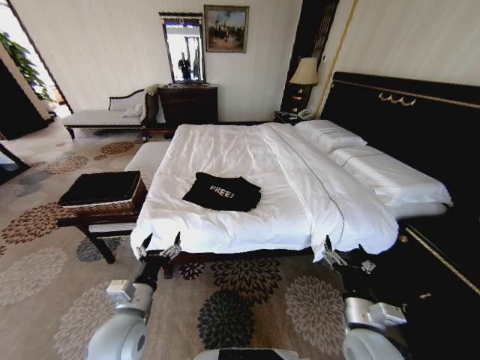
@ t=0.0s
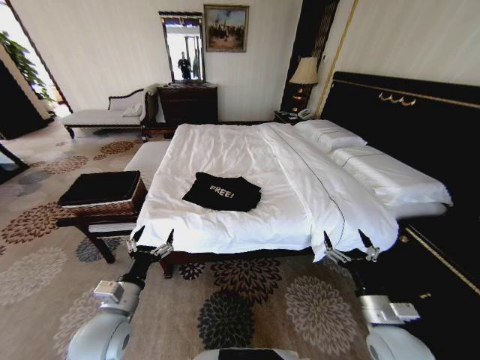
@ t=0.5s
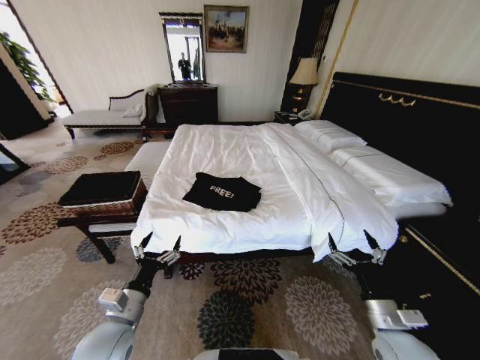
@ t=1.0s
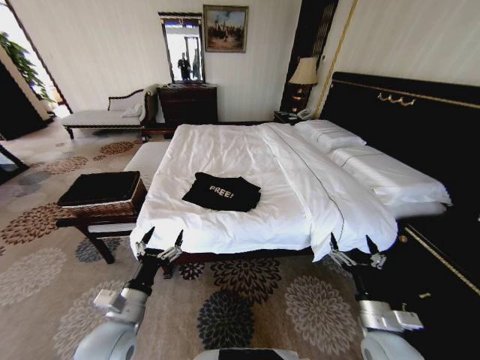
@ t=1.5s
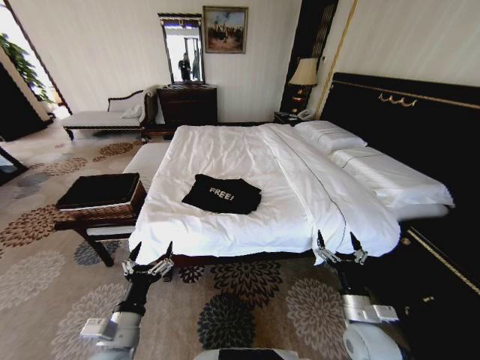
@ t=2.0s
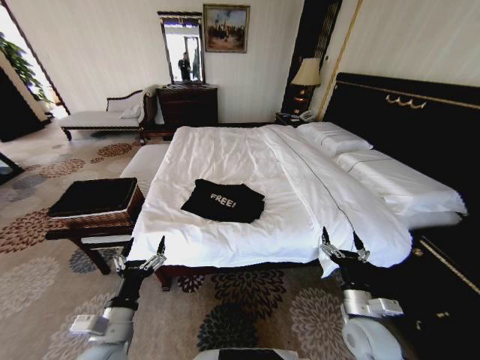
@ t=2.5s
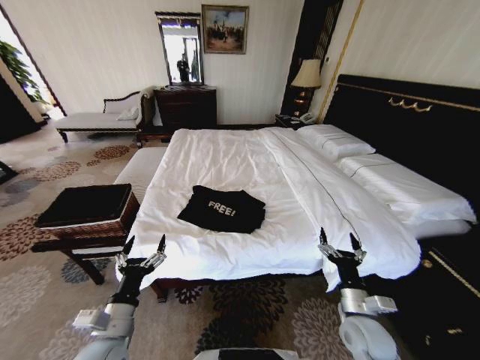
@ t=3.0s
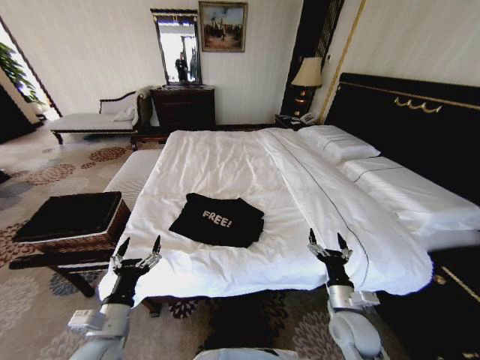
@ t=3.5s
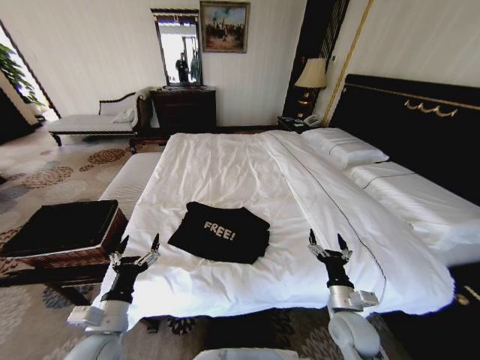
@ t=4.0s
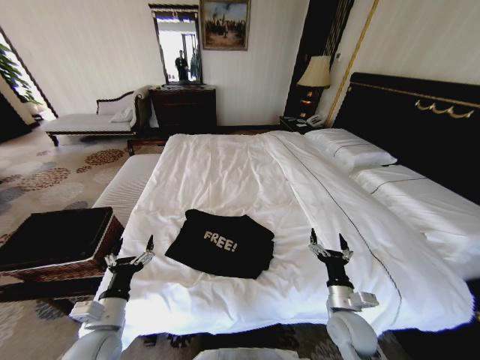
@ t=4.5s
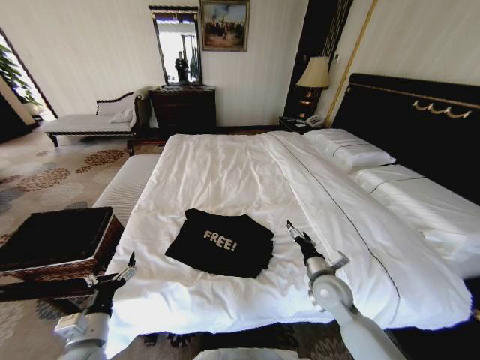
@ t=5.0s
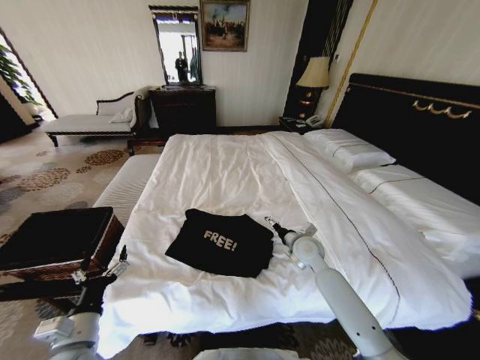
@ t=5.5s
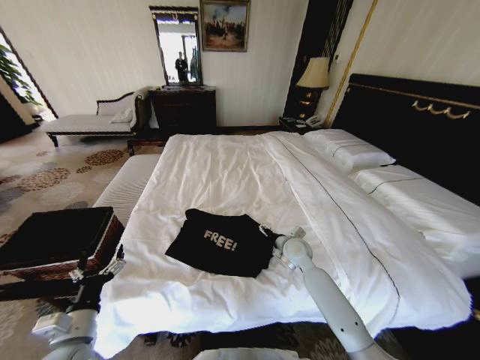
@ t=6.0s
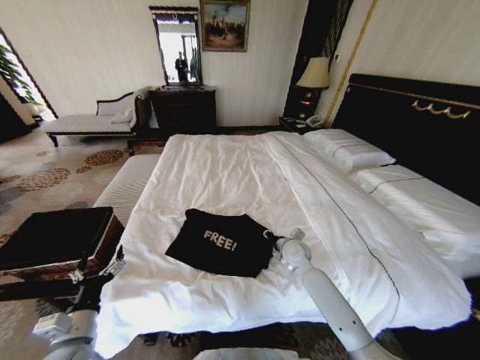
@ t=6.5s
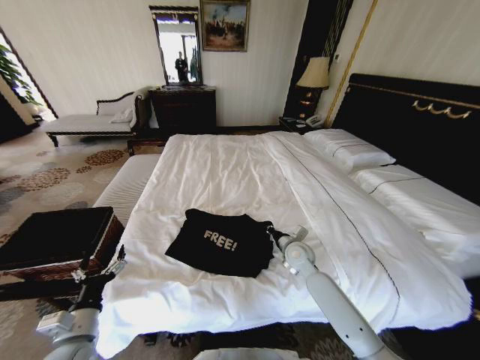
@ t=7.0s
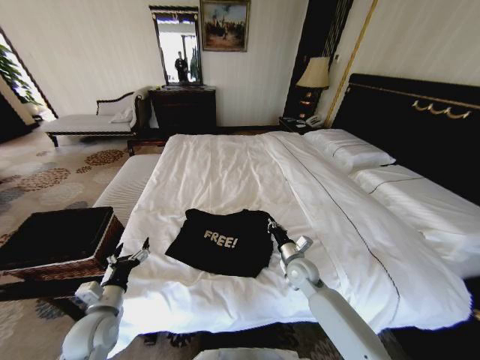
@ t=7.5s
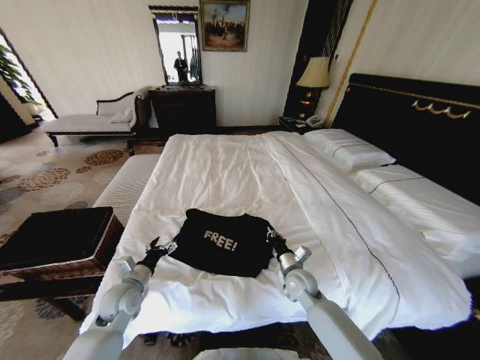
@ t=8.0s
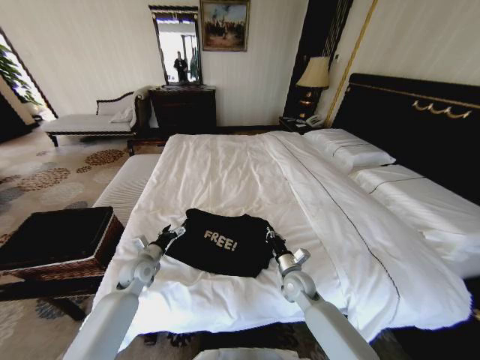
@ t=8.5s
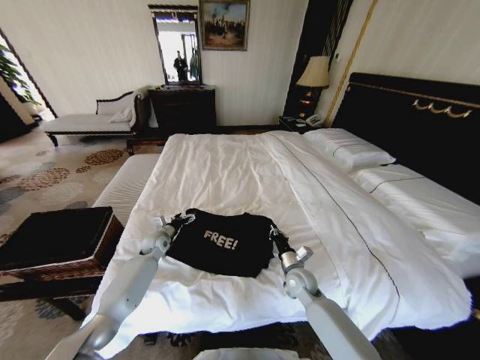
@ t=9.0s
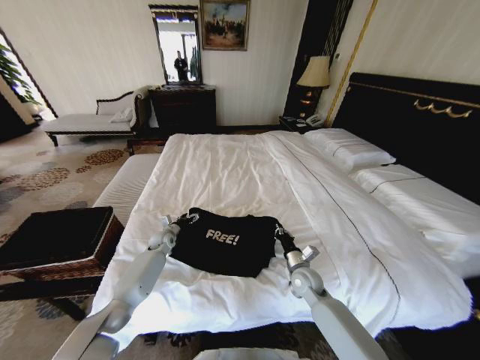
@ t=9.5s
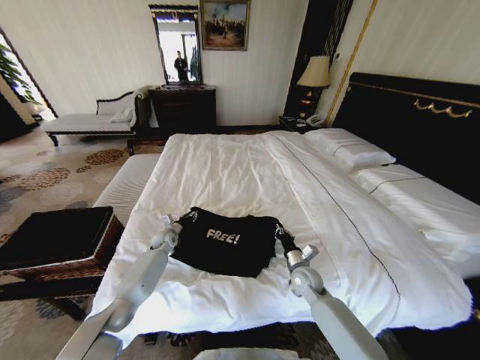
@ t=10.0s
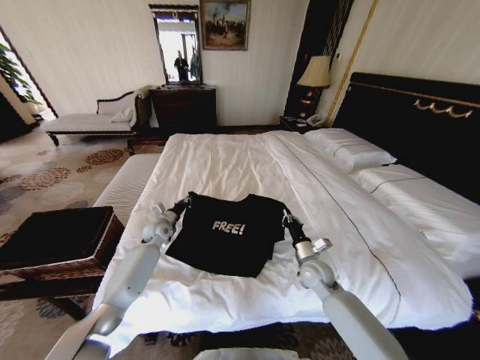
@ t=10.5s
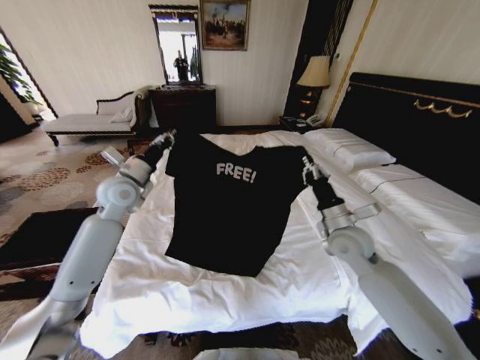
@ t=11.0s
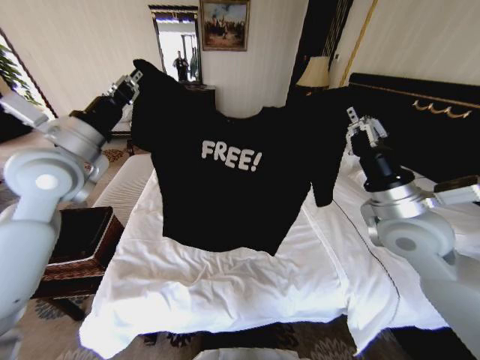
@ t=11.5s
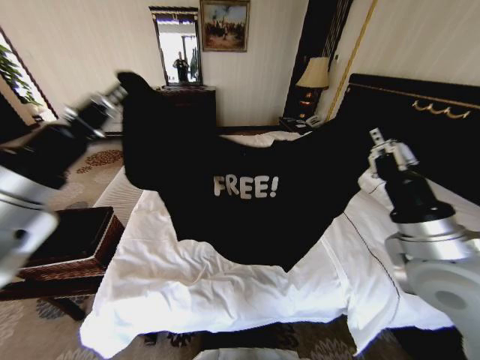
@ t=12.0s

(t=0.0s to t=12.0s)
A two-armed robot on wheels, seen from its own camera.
Task of the whole recording: Fold the clothes on the bed and place them into the basket.
t=4.0s - t=6.0s: The right gripper moves forward, about 20 cm. Meanwhile the left gripper is displaced to the left by some 5 cm.
t=6.0s - t=8.0s: The right gripper is displaced backward and downward by some 10 cm, and closes its fingers; the left gripper travels forward by about 15 cm.
t=8.0s - t=10.0s: The left gripper shifts some 25 cm forward, and closes.
t=10.0s - t=12.0s: The right gripper travels upward by roughly 30 cm; the left gripper heads upward and backward, covering some 50 cm, and closes.

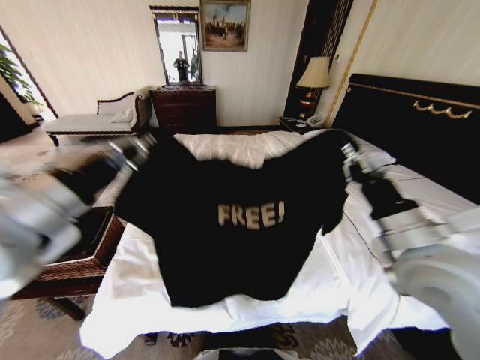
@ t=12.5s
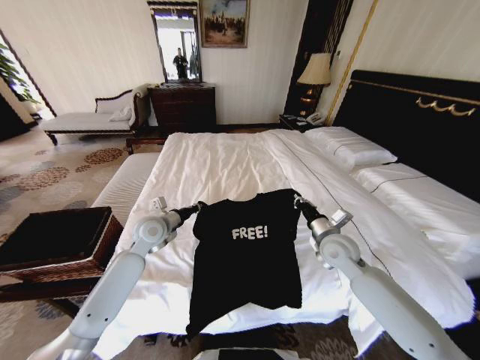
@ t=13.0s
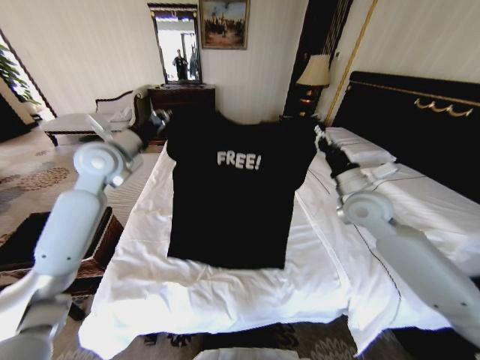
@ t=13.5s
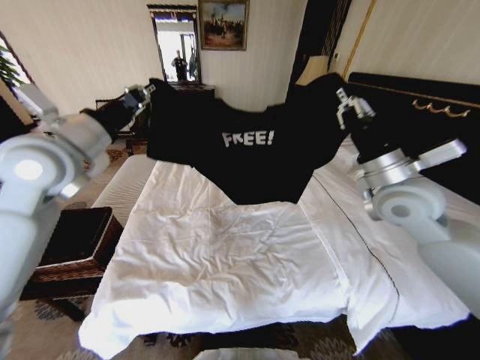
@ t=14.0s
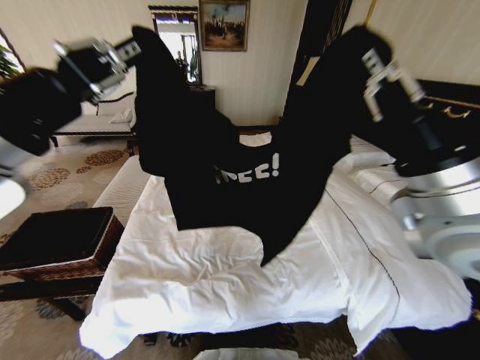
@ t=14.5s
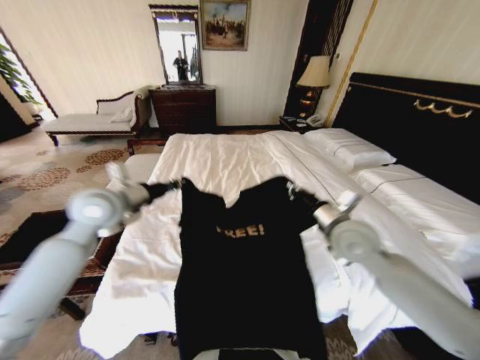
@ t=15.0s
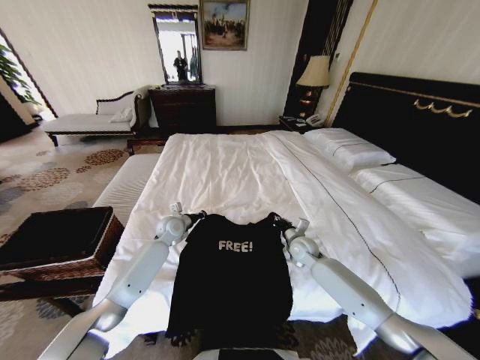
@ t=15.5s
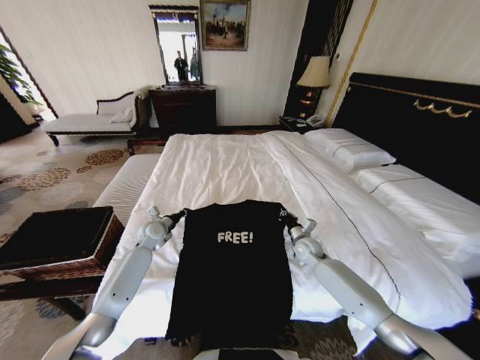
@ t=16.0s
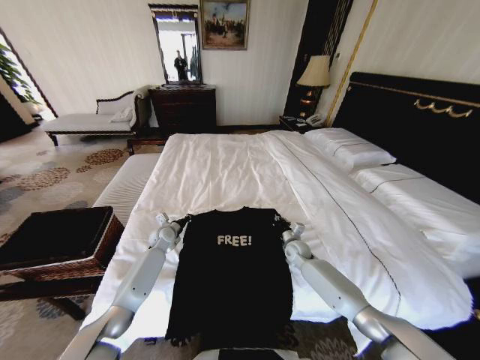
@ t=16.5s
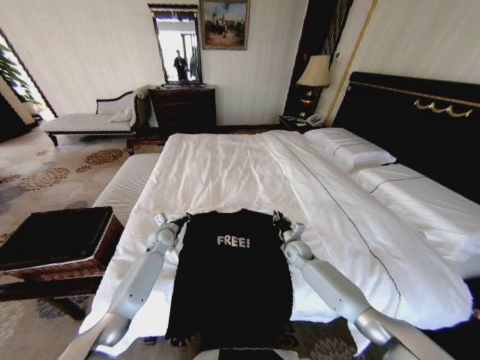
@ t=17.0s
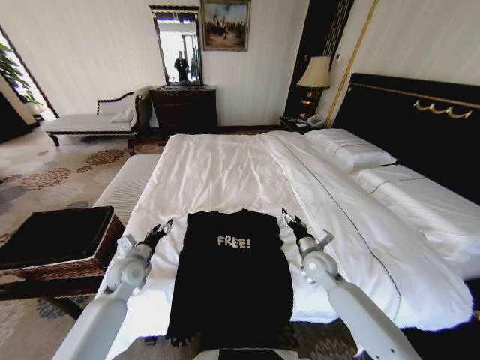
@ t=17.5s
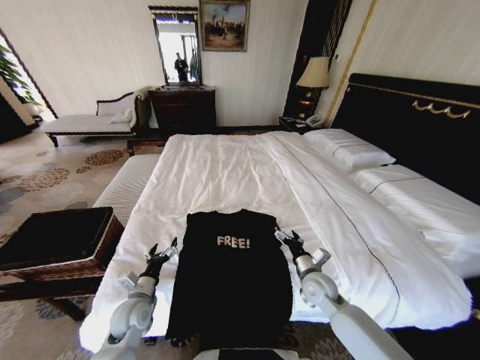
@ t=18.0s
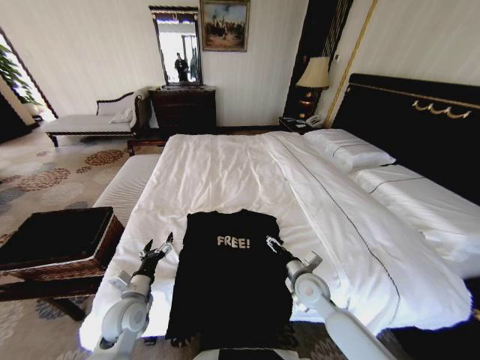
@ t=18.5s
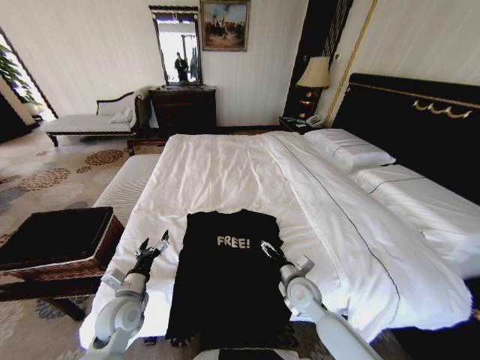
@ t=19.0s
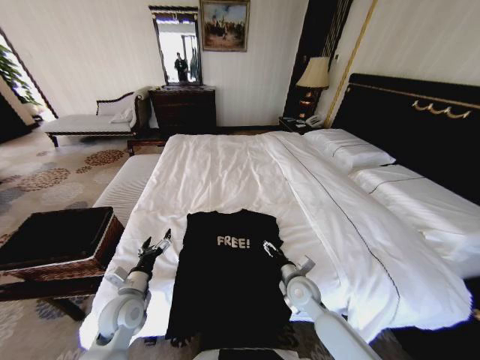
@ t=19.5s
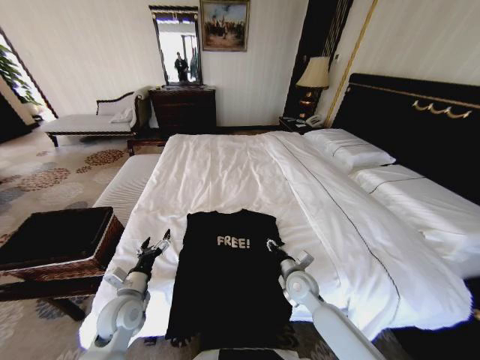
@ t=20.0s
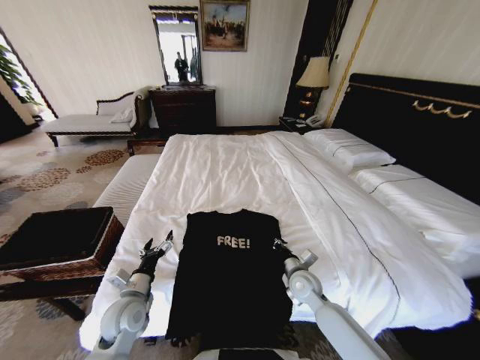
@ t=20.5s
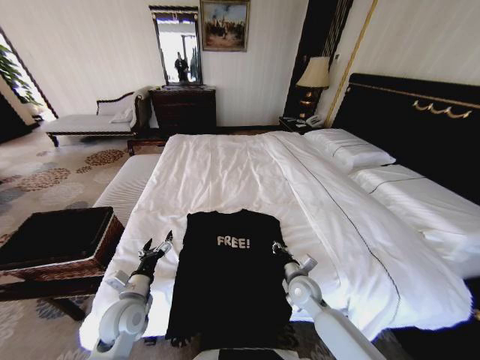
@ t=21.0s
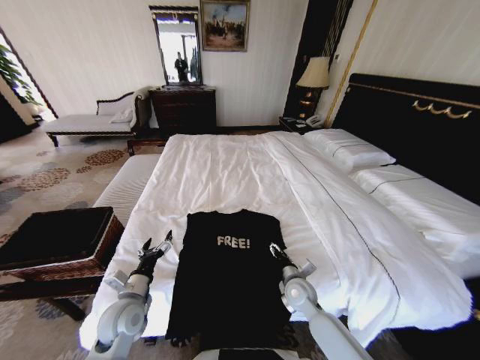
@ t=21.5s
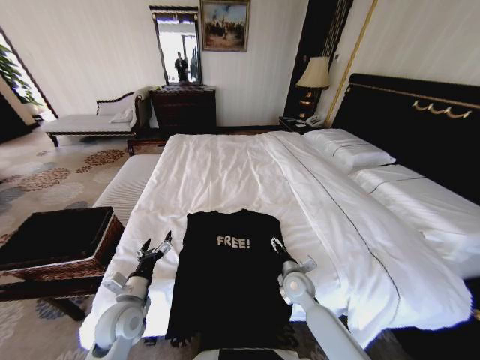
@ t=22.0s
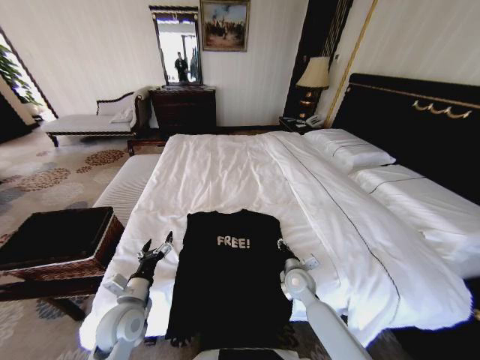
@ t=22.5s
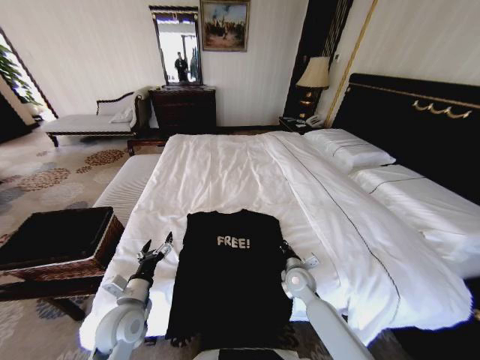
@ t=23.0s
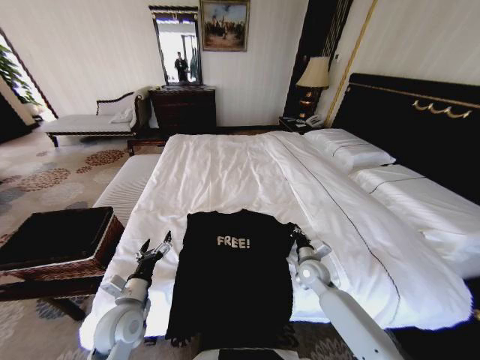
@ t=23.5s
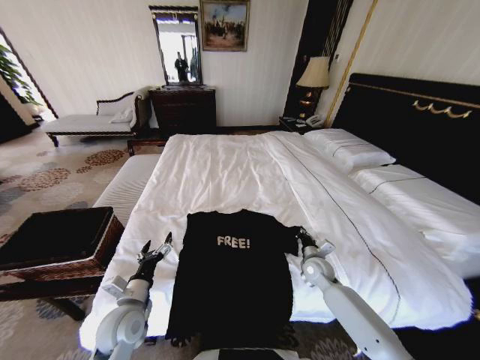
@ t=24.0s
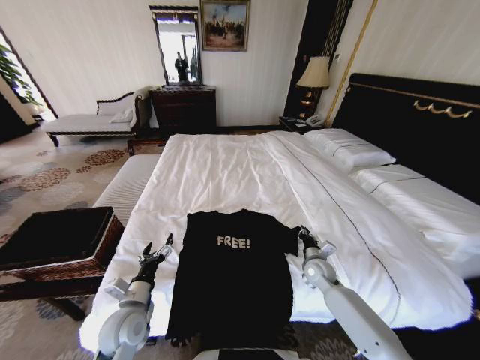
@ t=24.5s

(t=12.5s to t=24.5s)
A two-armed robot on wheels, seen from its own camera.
Task of the whole recording: Fold the clothes on the bed and place them into the basket.
t=12.5s - t=14.5s: The right gripper goes about 10 cm upward, while the left gripper travels downward and back again, some 20 cm each way.
t=14.5s - t=16.5s: The two grippers go roughly 50 cm downward and forward.
t=16.5s - t=18.5s: The left gripper is displaced backward by approximately 25 cm, and opens its fingers. The right gripper is displaced backward and upward by some 20 cm, and opens.
t=18.5s - t=20.5s: The right gripper closes up.
t=20.5s - t=22.5s: The right gripper opens.
t=22.5s - t=24.5s: The right gripper is displaced to the right by approximately 10 cm.

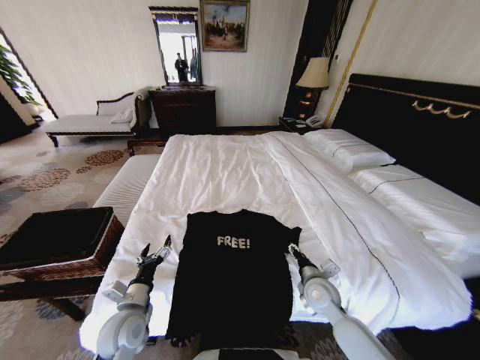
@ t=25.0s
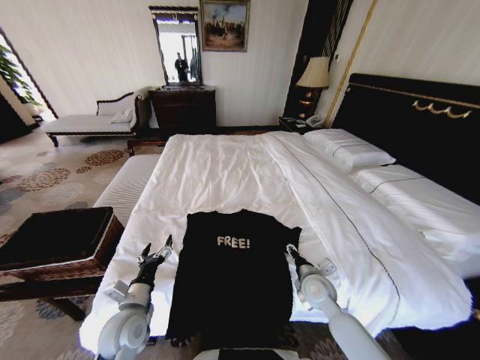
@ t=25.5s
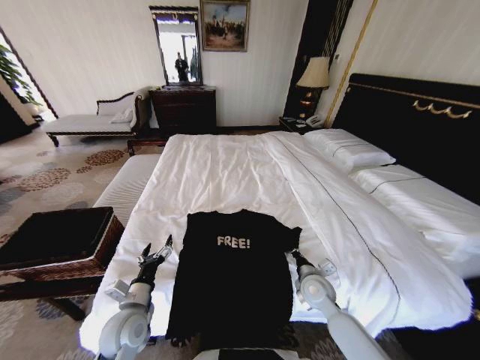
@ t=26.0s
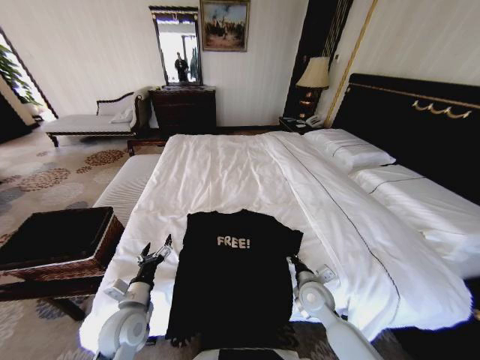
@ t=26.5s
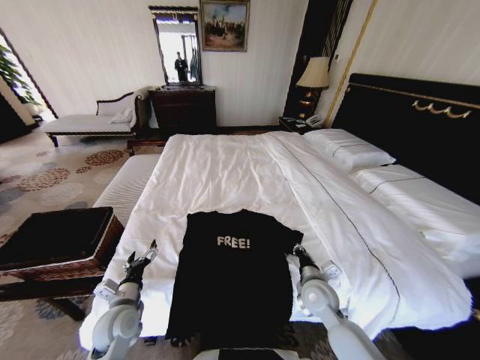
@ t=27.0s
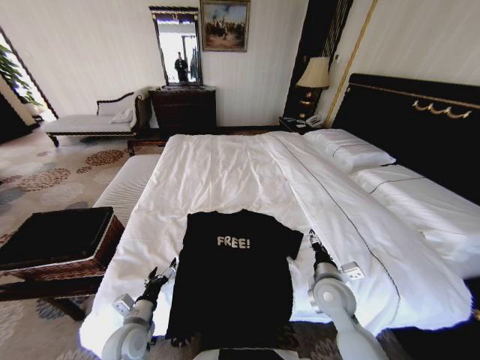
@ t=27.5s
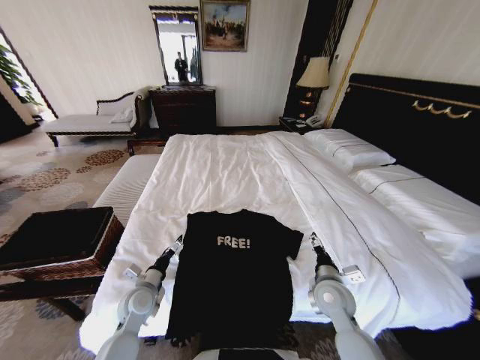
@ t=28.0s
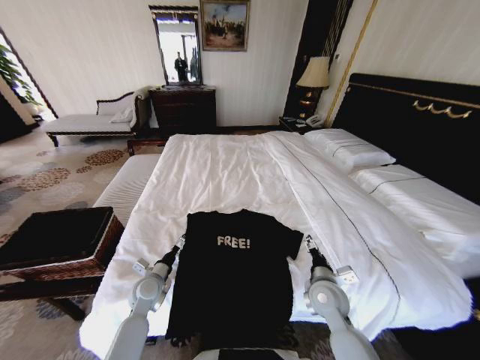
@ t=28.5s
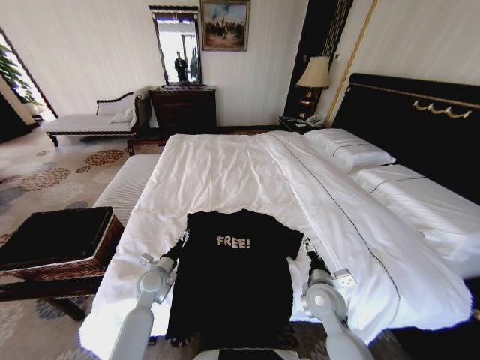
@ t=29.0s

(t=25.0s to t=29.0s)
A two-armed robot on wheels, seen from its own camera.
Task of the whole recording: Fold the clothes on the bed and place them into the basket.
t=25.0s - t=27.0s: The right gripper closes.
t=27.0s - t=29.0s: The right gripper opens its fingers. Meanwhile the left gripper moves forward, approximately 10 cm.
